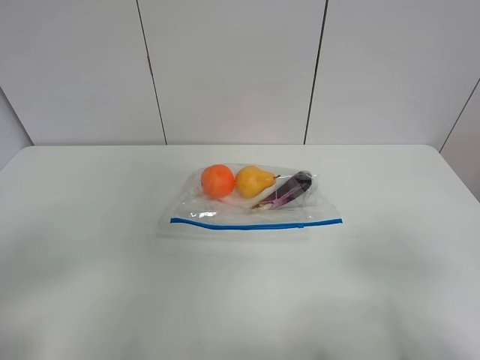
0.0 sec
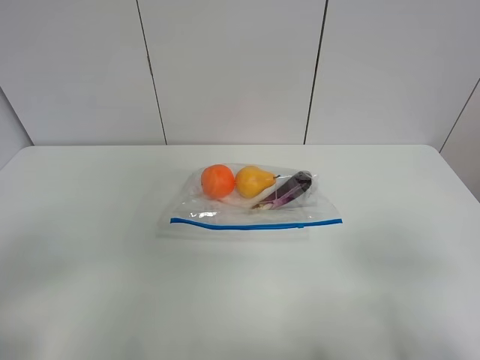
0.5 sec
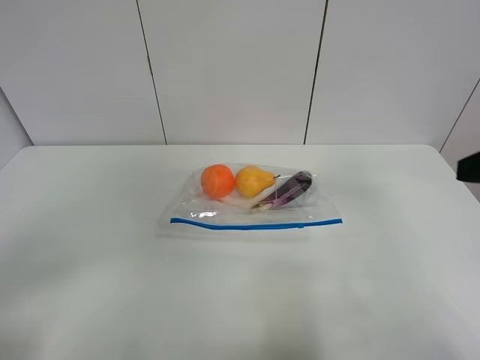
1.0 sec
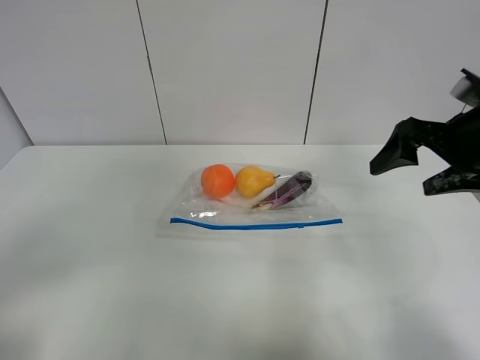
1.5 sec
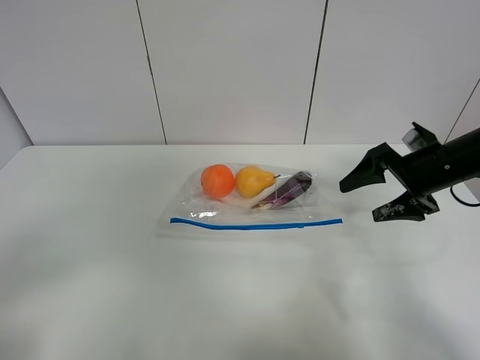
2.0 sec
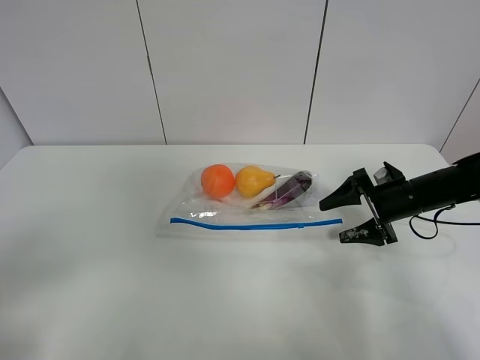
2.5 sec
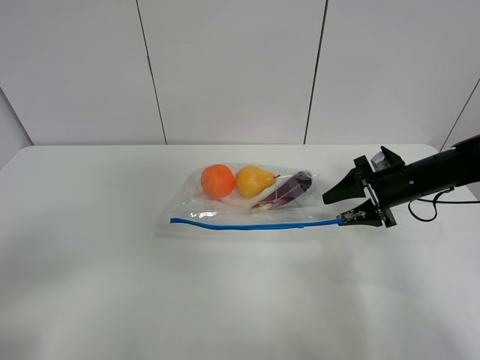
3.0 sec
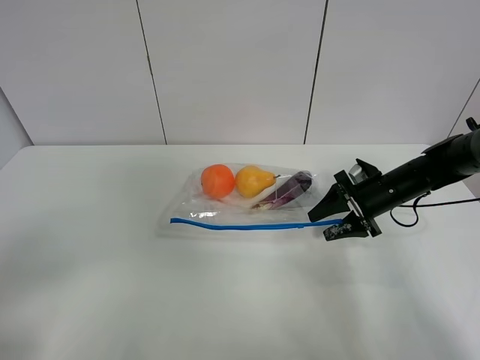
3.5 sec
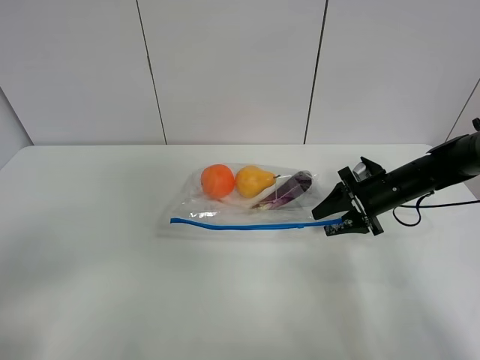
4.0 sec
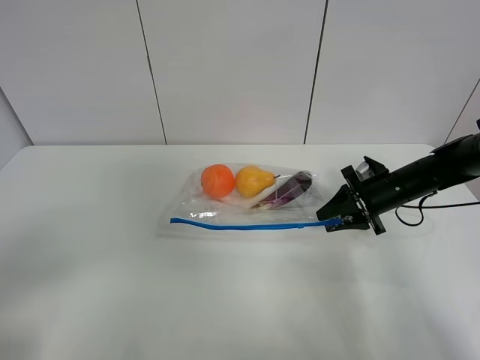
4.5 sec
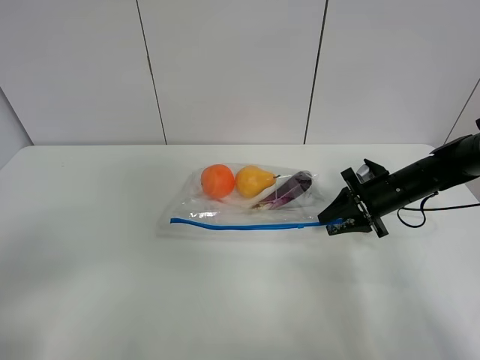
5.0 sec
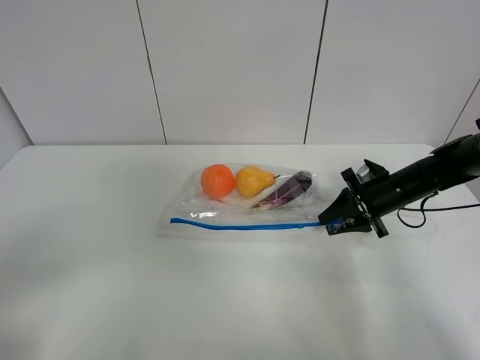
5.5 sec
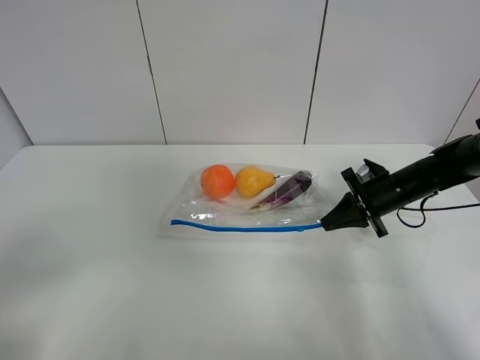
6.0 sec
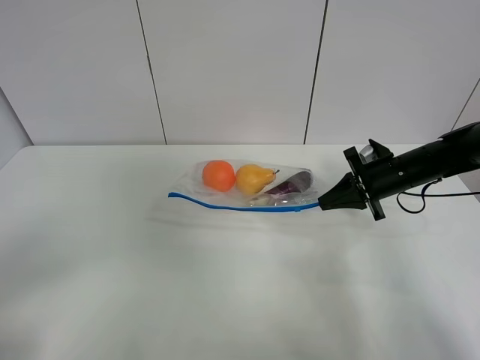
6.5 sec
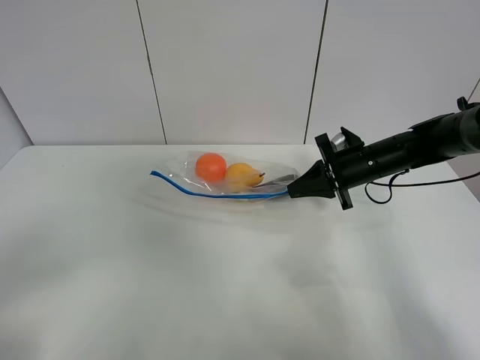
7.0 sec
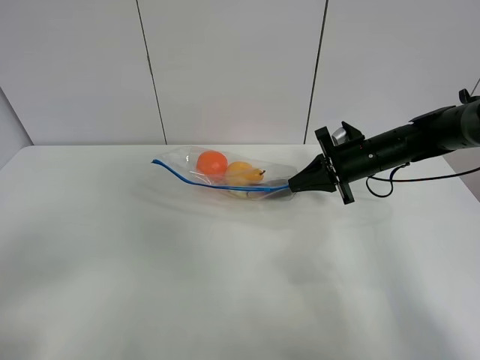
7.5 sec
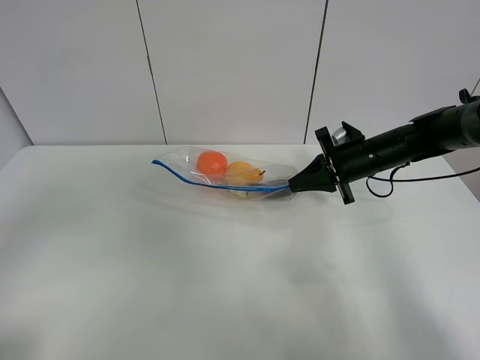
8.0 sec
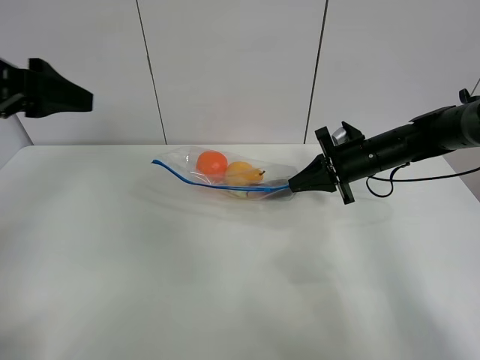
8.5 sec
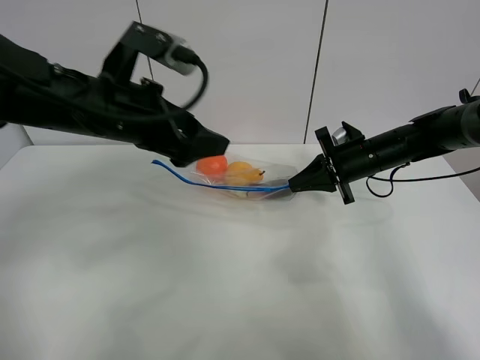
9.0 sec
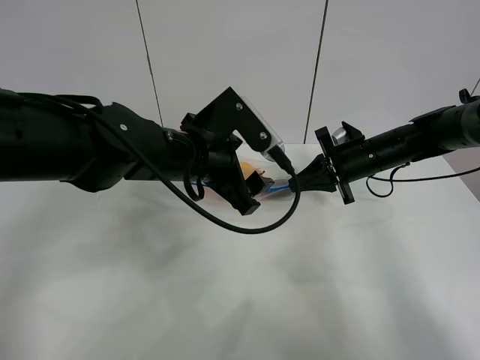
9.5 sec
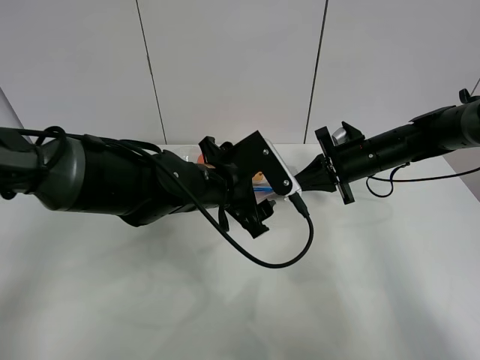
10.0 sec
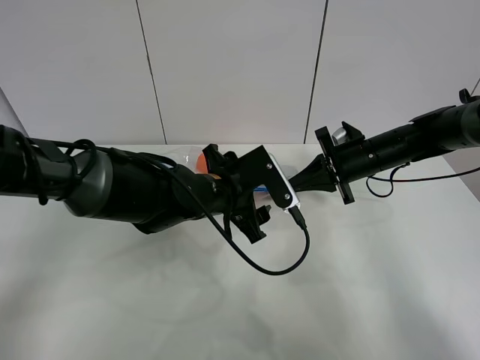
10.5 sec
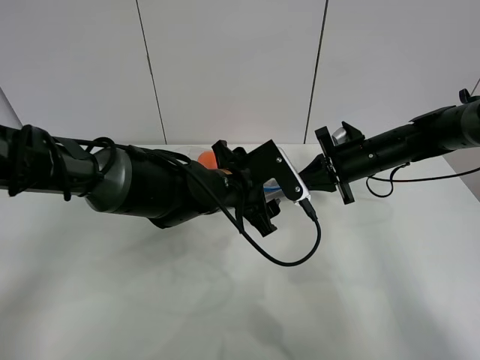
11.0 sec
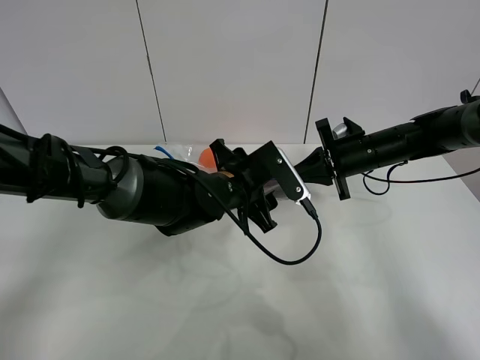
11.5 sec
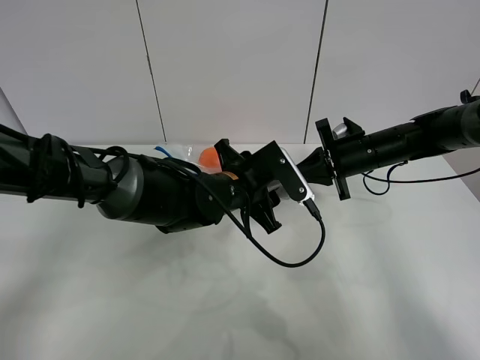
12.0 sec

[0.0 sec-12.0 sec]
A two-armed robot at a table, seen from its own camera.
Step, 0.0 sec to 5.5 sec: Grasp the fruit bag with right gripper.
Step, 6.0 sec to 7.5 sec: Lift the fruit bag with your right gripper.
0.0 sec to 2.0 sec: The right gripper travels forward by roughly 30 cm.
2.0 sec to 4.0 sec: The right gripper is displaced downward by about 10 cm, and closes up.
4.0 sec to 6.0 sec: The right gripper closes up.
6.0 sec to 8.0 sec: The left gripper shifts roughly 10 cm upward and forward. Meanwhile the right gripper travels to the left and upward by roughly 10 cm.
8.0 sec to 10.0 sec: The left gripper shifts approximately 40 cm to the right, forward and downward.
10.0 sec to 12.0 sec: The grippers move only a little.

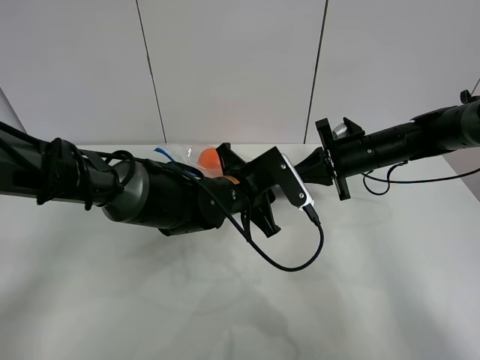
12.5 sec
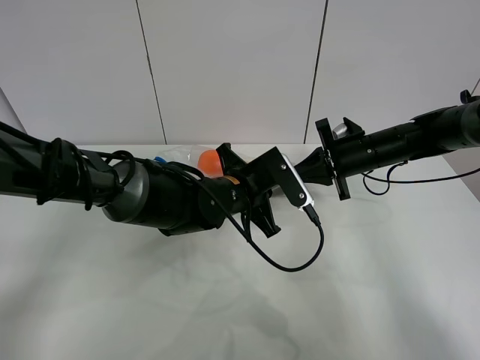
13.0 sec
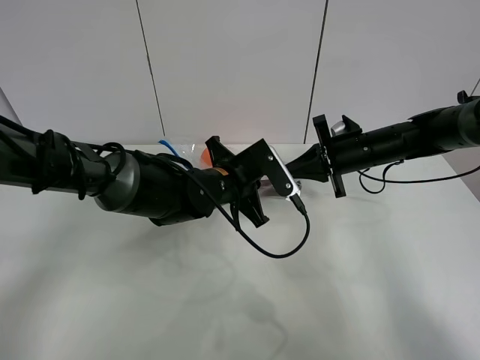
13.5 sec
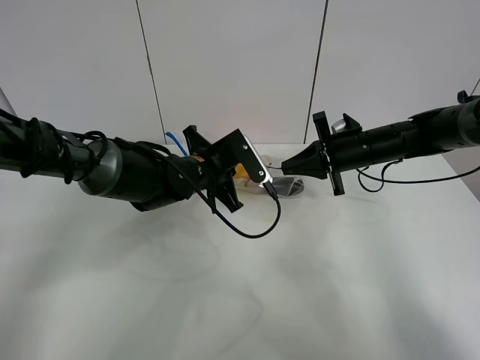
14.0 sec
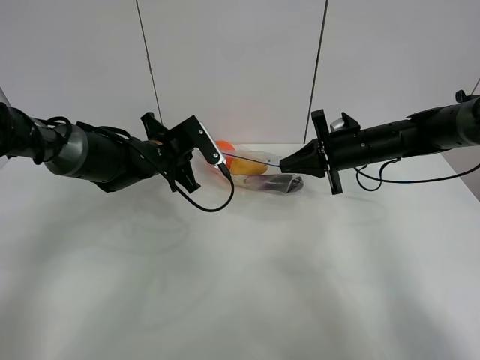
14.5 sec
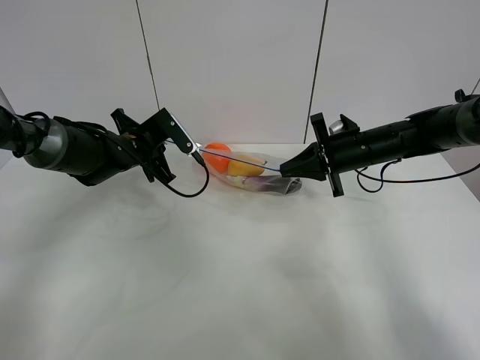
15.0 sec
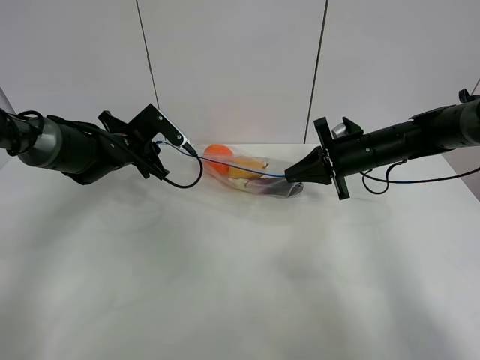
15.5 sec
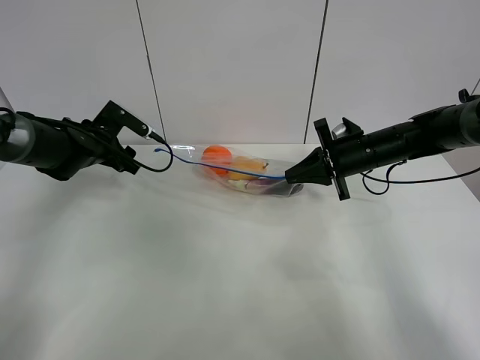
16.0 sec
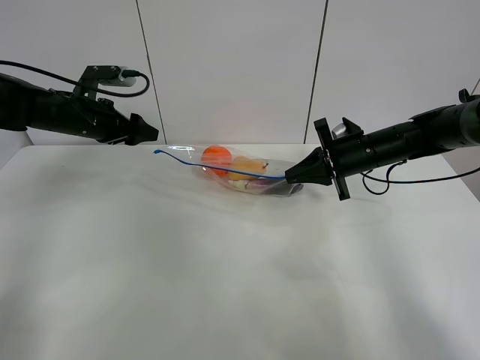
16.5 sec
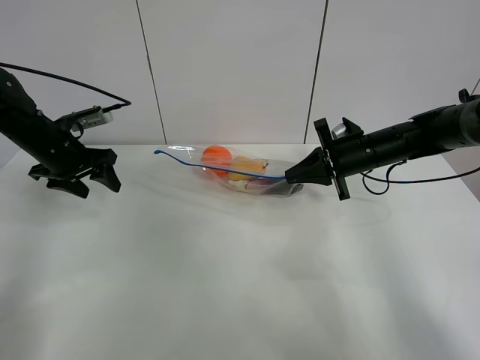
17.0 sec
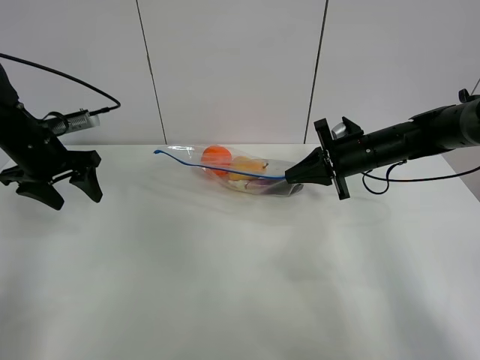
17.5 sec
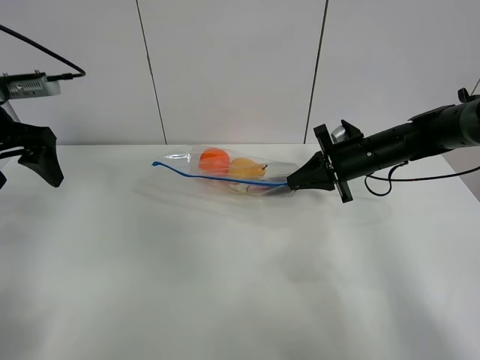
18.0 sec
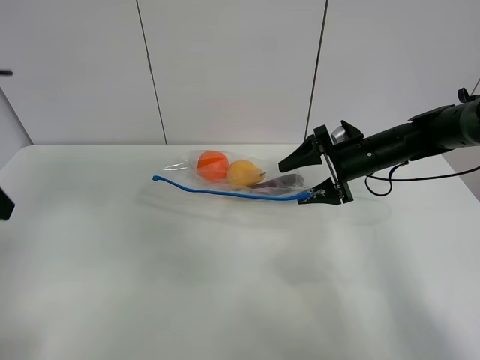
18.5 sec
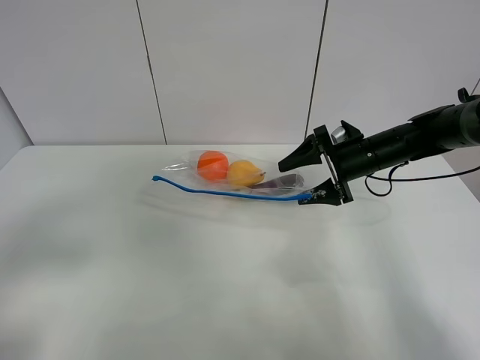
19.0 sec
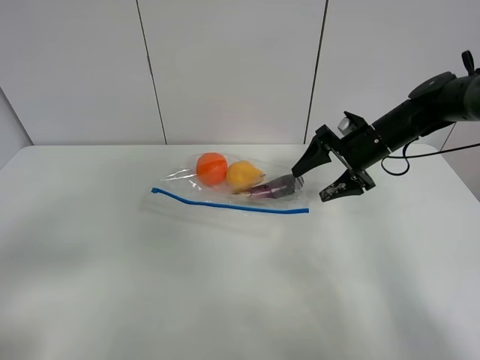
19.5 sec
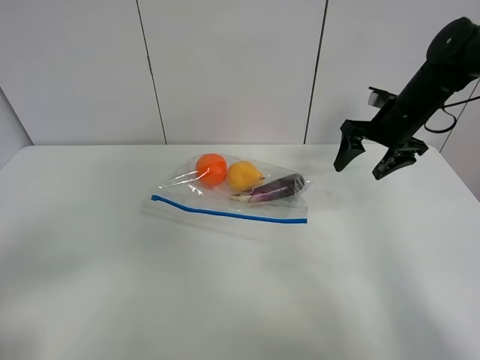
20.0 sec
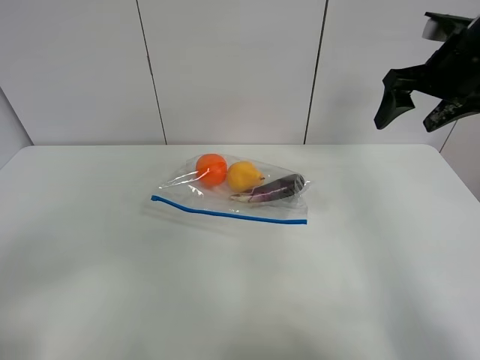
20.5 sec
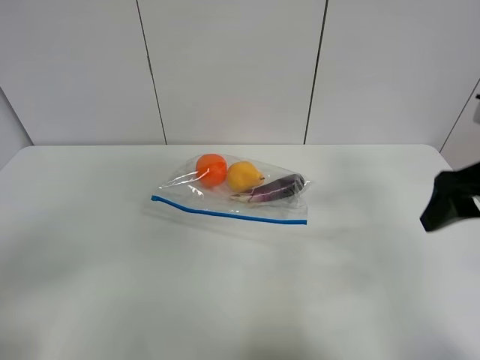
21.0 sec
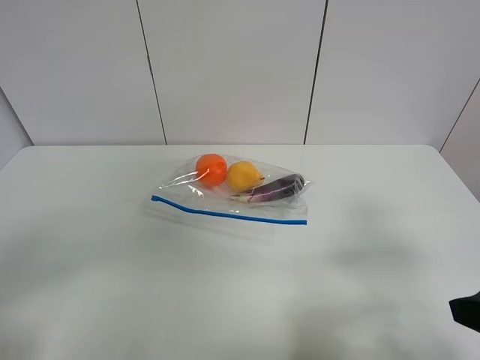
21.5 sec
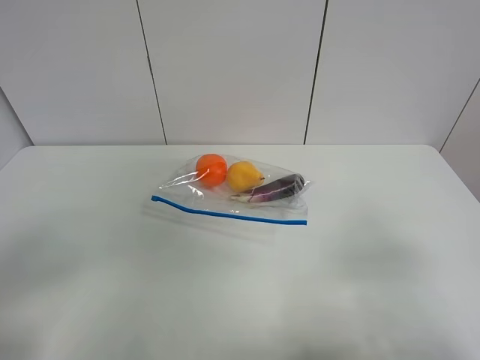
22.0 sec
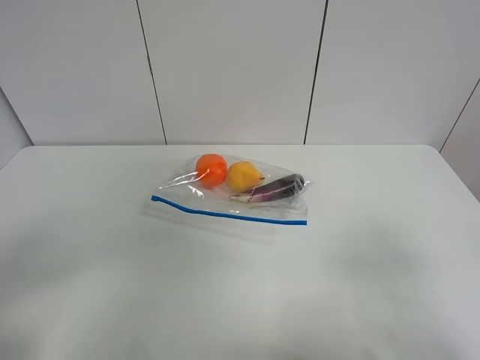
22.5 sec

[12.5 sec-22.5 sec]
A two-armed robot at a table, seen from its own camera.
Step, 12.5 sec to 15.5 sec: Pull the fruit bag with left gripper.
12.5 sec to 14.5 sec: The left gripper moves to the left and forward, about 15 cm.
14.5 sec to 16.5 sec: The left gripper shifts approximately 15 cm to the left and upward, and opens.
16.5 sec to 18.5 sec: The right gripper opens up, while the left gripper moves backward and upward, approximately 25 cm.
18.5 sec to 20.5 sec: The left gripper heads backward, covering approximately 20 cm. The right gripper shifts roughly 20 cm upward.
20.5 sec to 22.5 sec: The right gripper travels backward by roughly 35 cm.

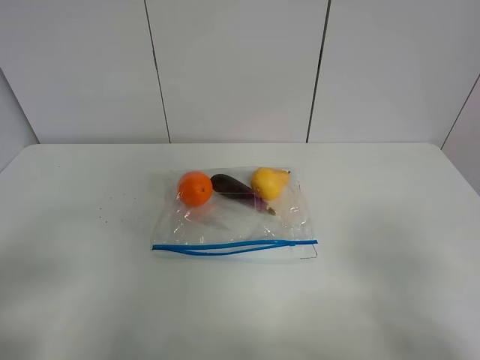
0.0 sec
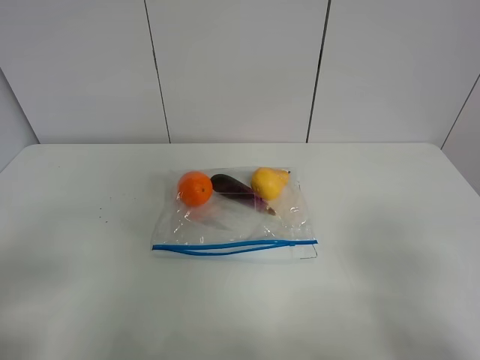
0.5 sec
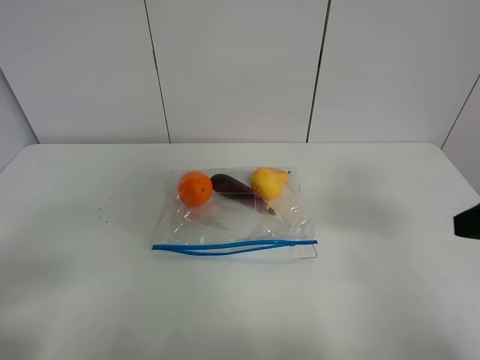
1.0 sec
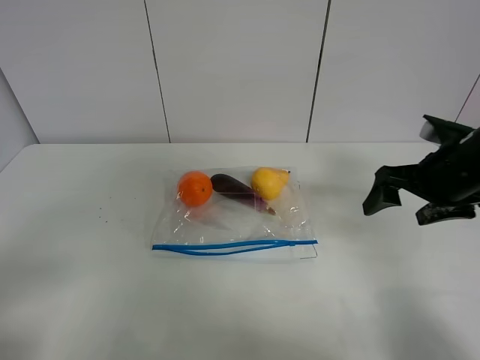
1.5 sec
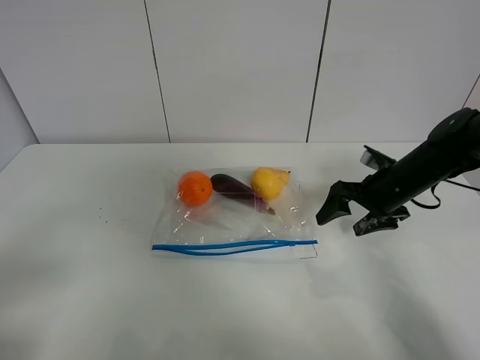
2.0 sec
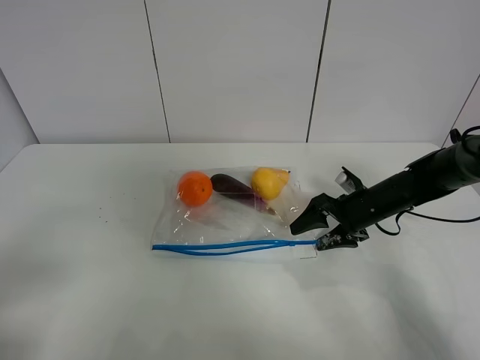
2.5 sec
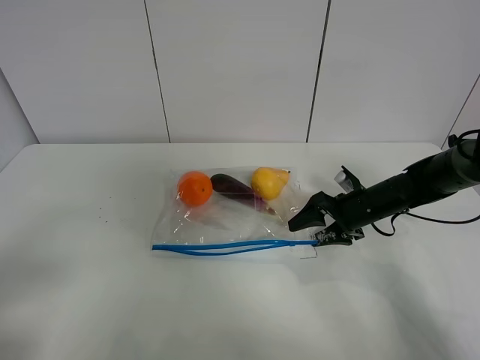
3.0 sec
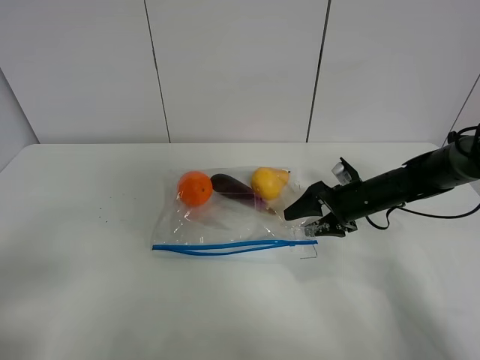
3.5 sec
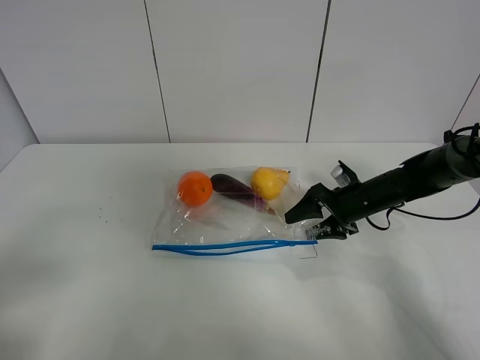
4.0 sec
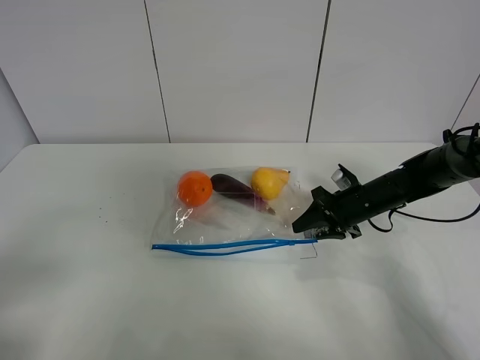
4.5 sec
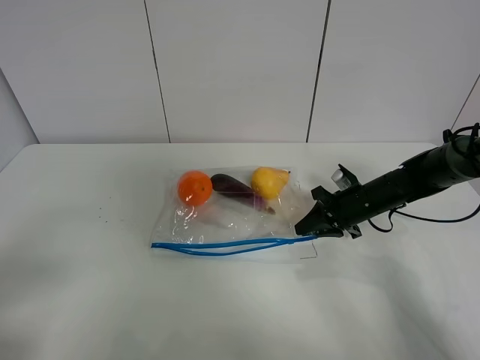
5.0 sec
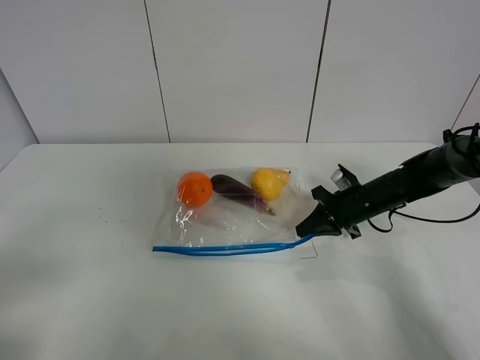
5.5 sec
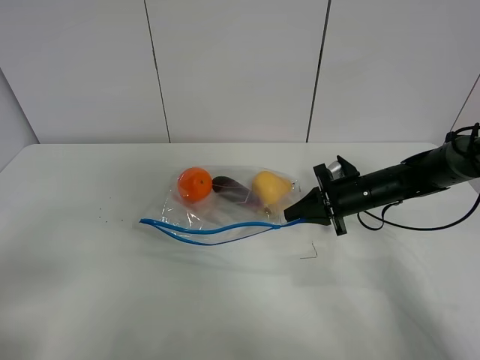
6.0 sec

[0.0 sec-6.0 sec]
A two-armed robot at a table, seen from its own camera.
Step, 0.0 sec to 5.0 sec: Grasp the fruit bag with right gripper.
0.0 sec to 2.0 sec: The right gripper travels forward and downward by some 35 cm.
2.0 sec to 4.0 sec: The right gripper shifts about 5 cm downward.
4.0 sec to 6.0 sec: The right gripper closes.
